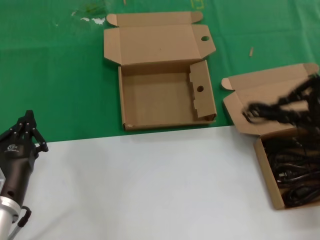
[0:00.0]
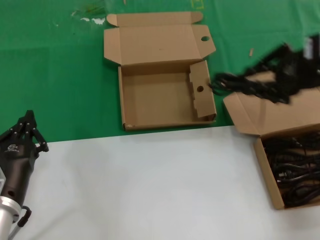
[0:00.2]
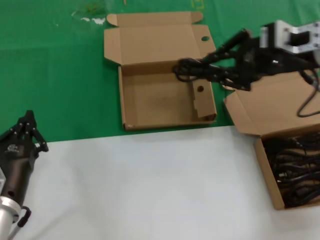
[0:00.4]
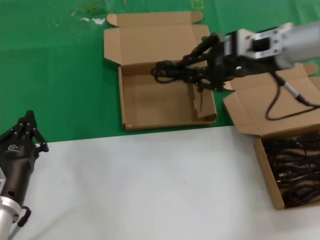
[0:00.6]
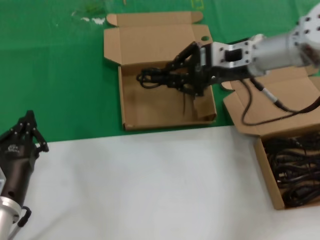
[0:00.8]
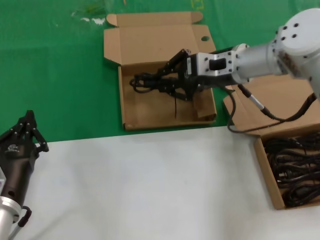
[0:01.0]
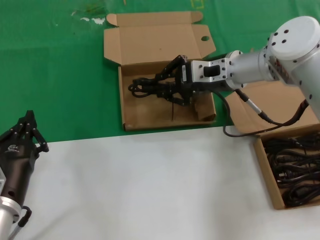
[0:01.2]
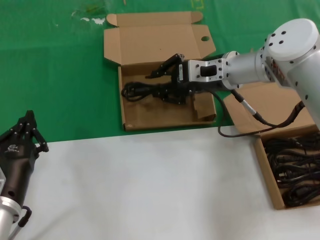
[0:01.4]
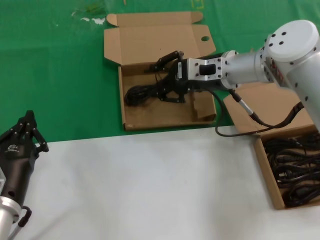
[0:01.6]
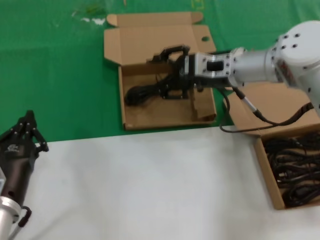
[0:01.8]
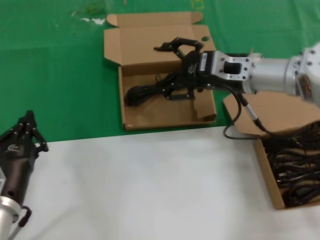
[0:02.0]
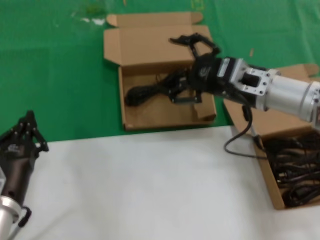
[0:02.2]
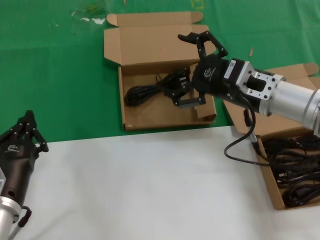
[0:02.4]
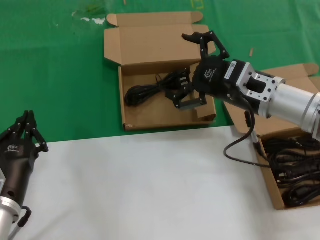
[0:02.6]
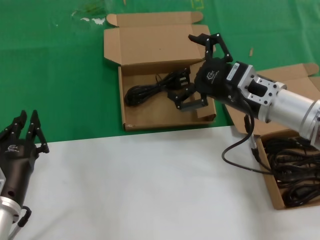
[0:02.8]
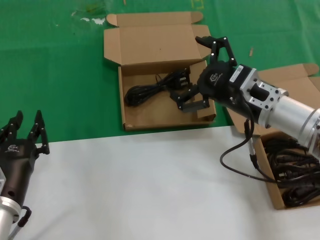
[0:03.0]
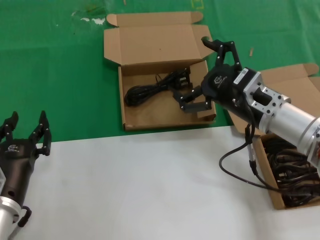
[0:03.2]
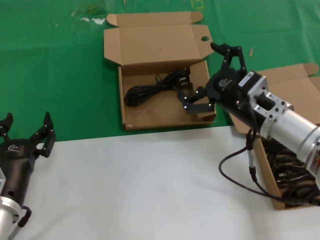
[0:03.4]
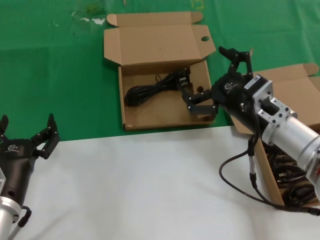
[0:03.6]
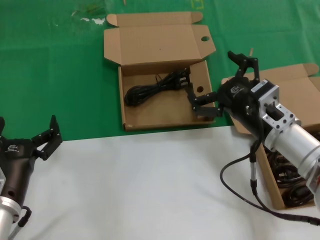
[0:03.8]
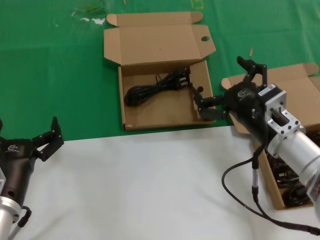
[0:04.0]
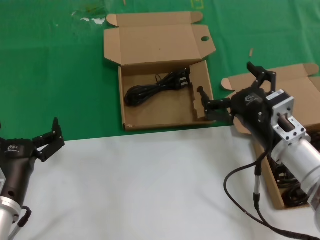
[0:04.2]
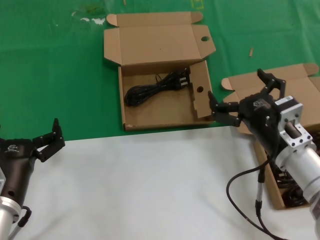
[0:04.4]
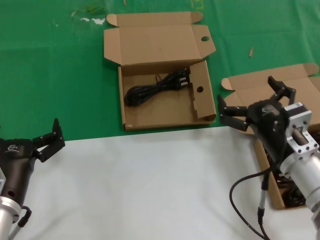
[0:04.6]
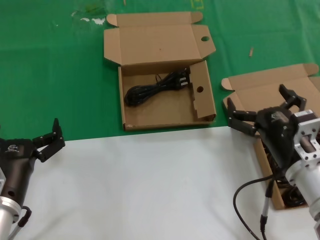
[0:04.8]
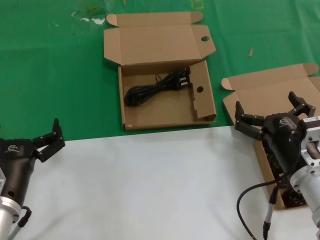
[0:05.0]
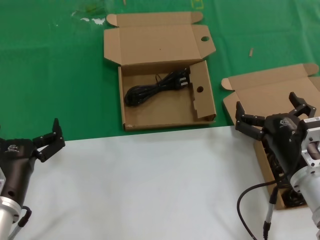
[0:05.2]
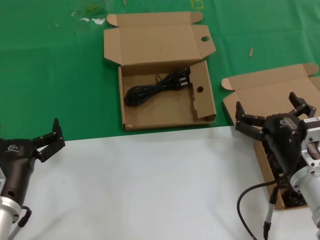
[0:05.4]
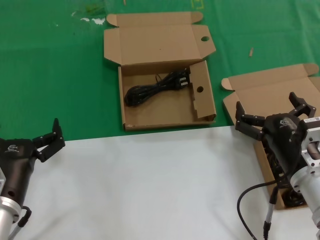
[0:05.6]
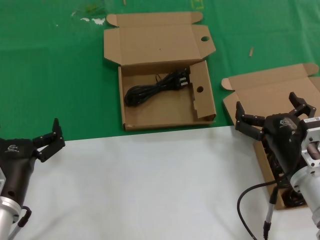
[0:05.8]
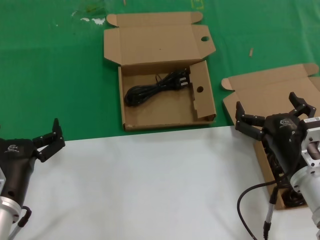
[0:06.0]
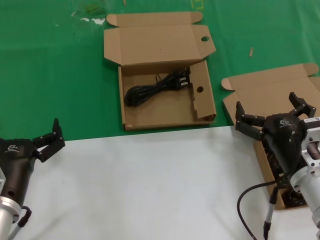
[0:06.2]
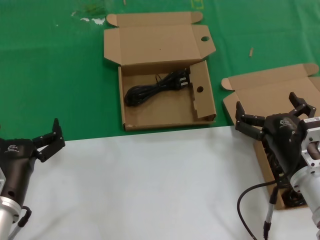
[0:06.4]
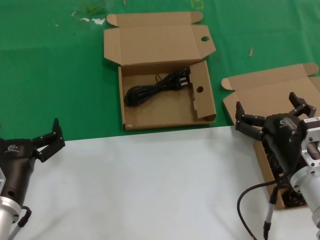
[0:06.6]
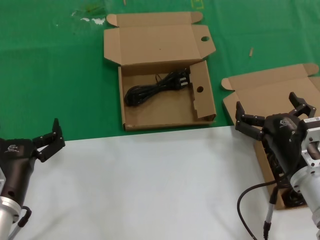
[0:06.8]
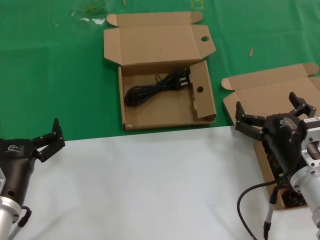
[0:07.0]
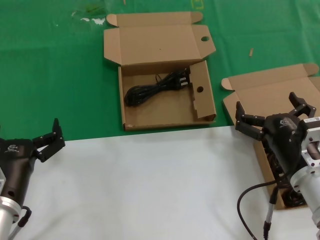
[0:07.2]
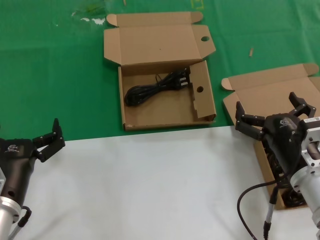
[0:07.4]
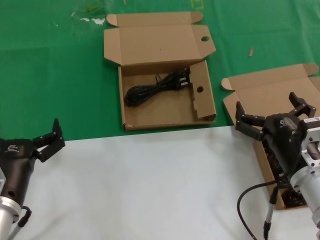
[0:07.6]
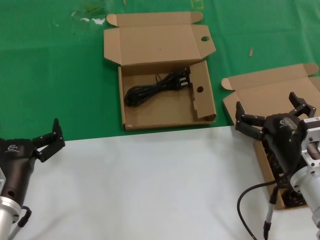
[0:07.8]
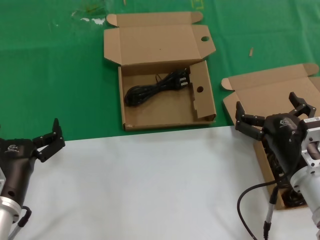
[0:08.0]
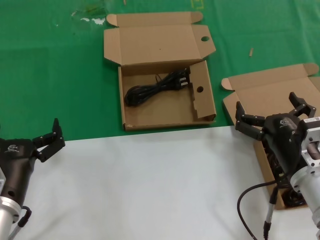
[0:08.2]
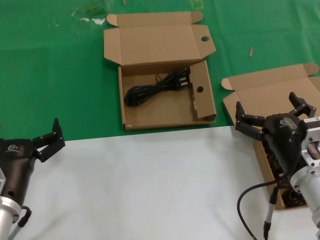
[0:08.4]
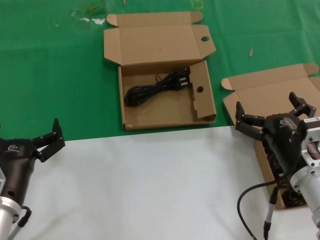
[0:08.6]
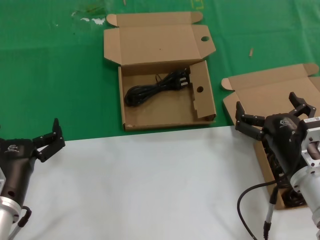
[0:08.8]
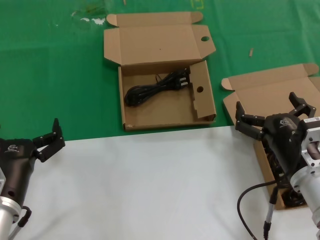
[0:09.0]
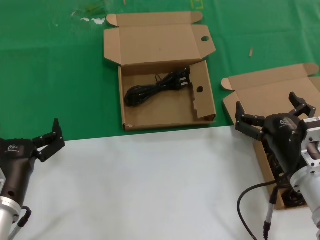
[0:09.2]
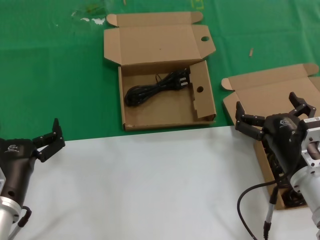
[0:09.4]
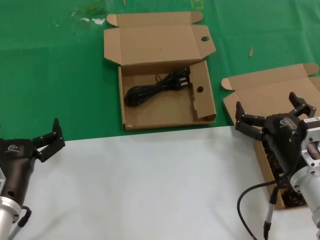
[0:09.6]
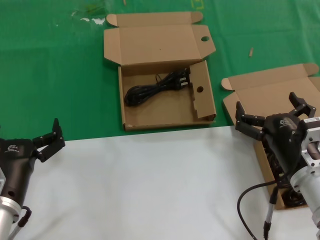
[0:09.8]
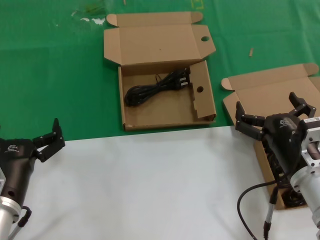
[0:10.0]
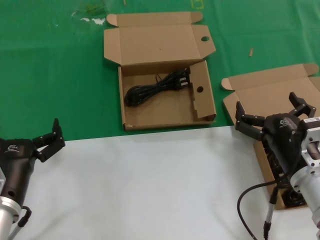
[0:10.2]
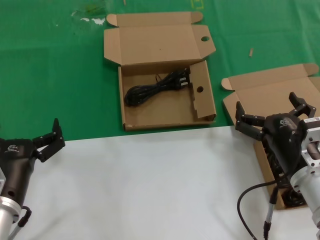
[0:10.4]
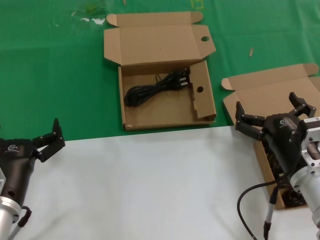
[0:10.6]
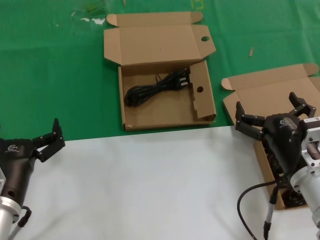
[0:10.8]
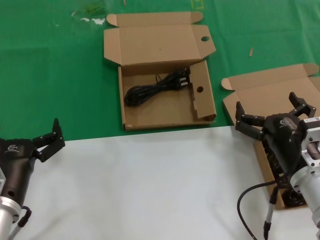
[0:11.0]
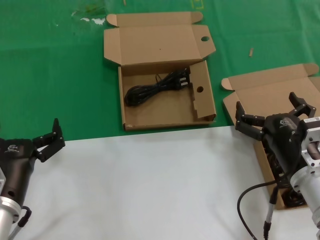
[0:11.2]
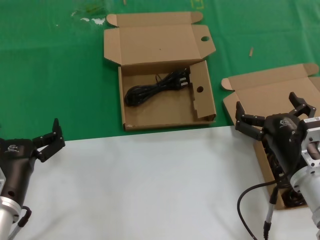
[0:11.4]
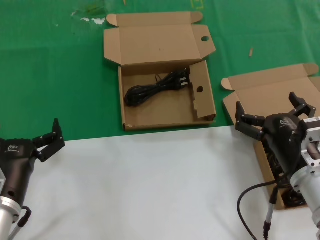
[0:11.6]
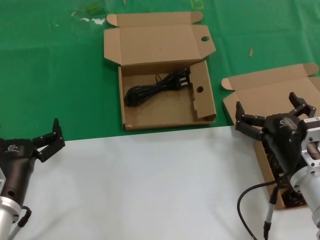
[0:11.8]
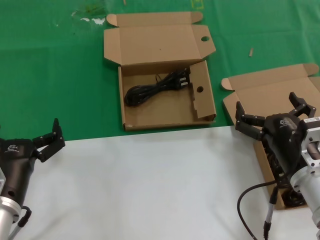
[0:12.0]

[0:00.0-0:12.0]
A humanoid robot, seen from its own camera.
Task of the whole recording: take the parts from the box containing them and put them into an empty box.
Step, 0:00.0 to 0:01.8: Place the data cable in the another box.
0:00.0 to 0:01.6: The right hand heads to the left and forward, covering some 25 cm.
0:01.6 to 0:03.0: The right hand heads backward, covering about 10 cm.
0:03.0 to 0:04.4: The right hand moves downward and backward, some 10 cm.
0:04.4 to 0:06.0: The hands move only a little.
0:06.0 to 0:12.0: Both hands stay put.

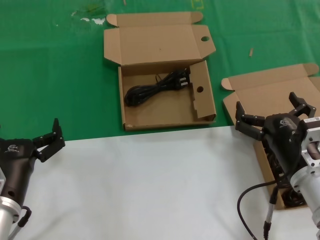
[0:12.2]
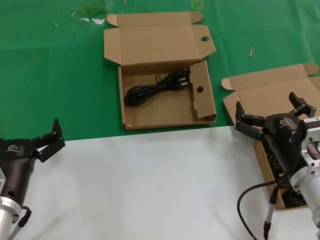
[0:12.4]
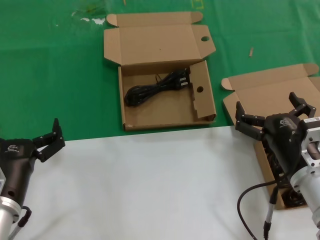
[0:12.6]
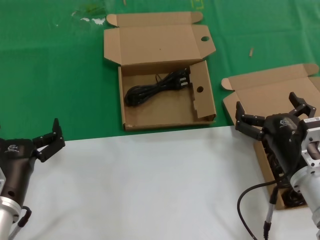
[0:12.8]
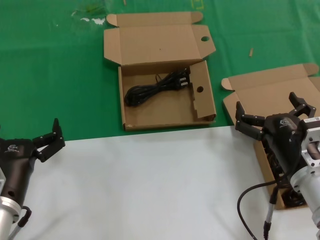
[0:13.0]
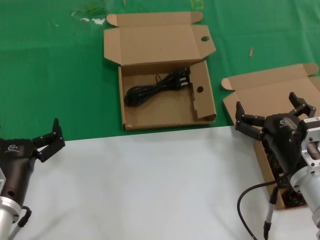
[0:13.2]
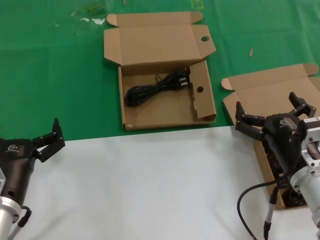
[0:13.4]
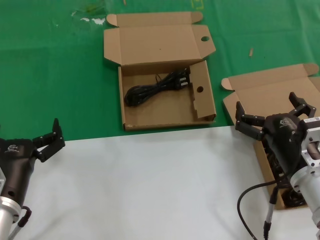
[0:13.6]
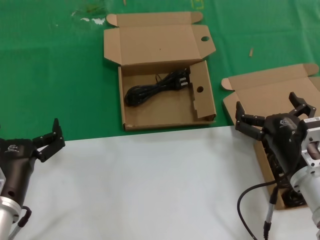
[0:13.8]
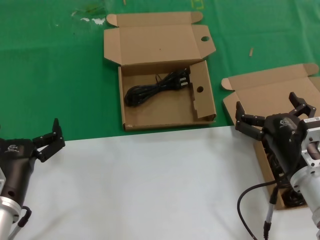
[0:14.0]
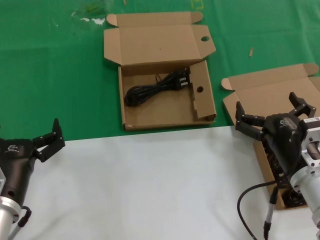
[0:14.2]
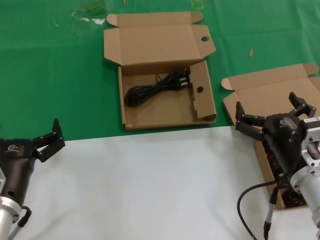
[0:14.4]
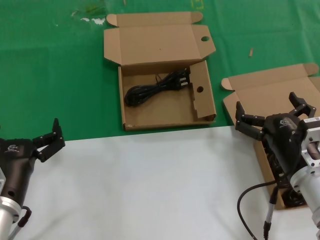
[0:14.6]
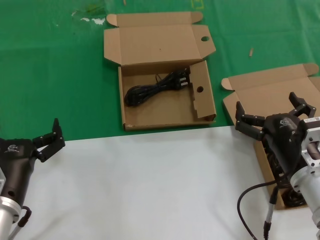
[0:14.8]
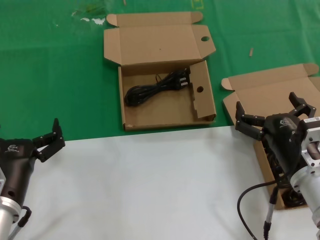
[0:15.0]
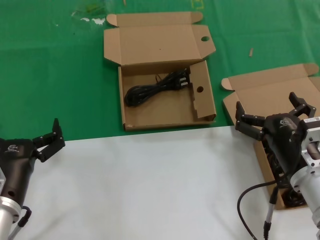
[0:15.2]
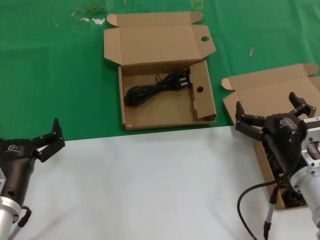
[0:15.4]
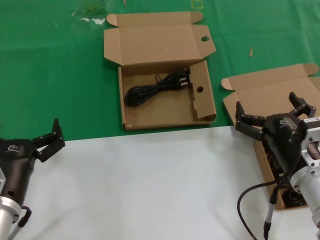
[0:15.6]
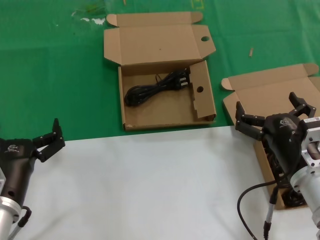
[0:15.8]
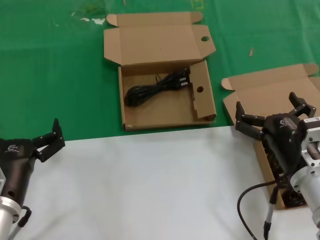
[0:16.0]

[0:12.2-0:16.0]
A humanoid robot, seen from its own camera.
Task of the whole recording: take the parts from the box containing them and put them into an empty box.
0:12.2 to 0:16.0: Both hands stay about where they are.
